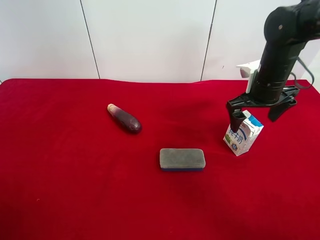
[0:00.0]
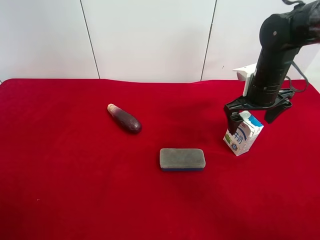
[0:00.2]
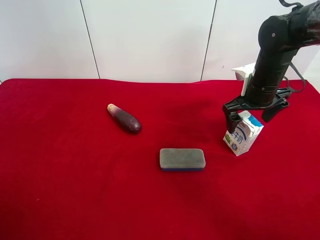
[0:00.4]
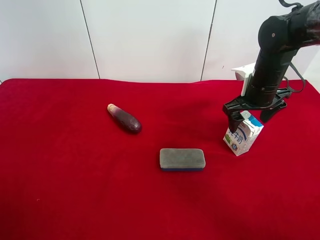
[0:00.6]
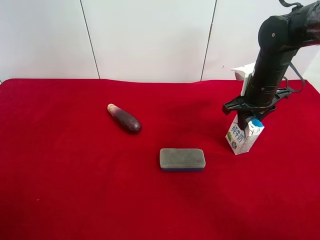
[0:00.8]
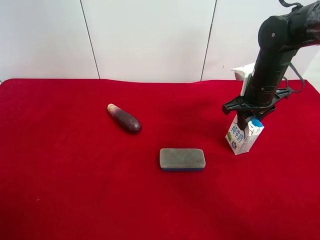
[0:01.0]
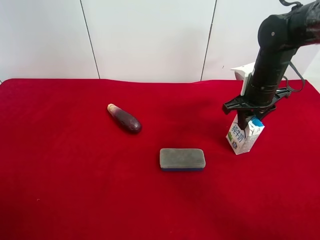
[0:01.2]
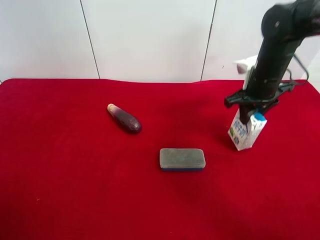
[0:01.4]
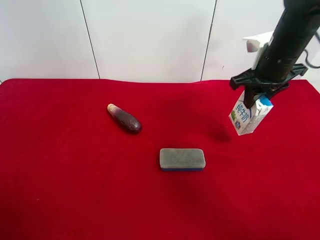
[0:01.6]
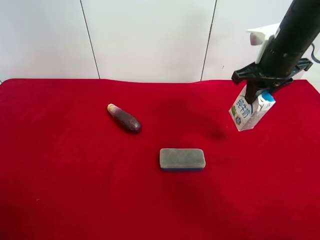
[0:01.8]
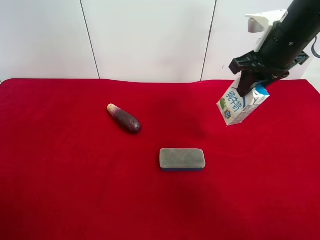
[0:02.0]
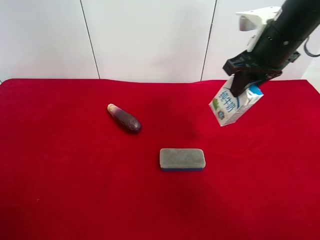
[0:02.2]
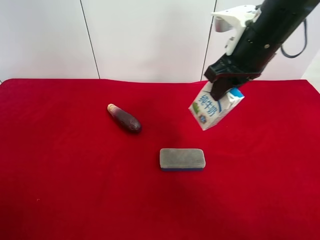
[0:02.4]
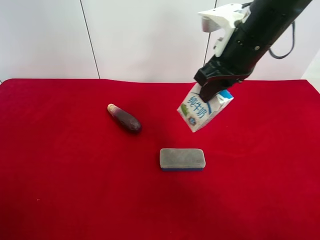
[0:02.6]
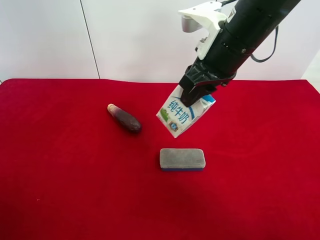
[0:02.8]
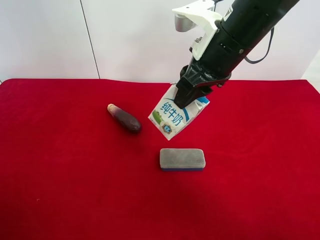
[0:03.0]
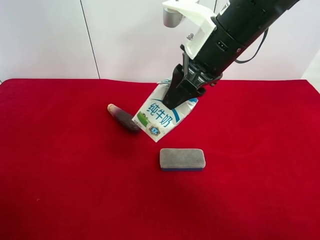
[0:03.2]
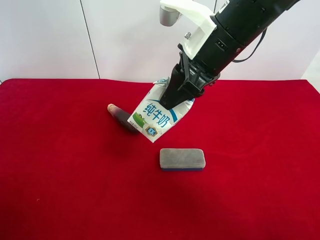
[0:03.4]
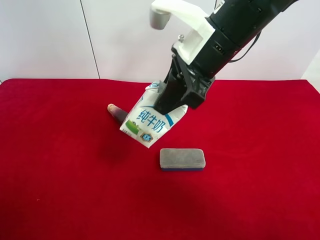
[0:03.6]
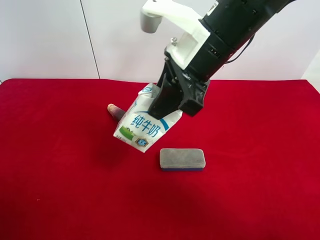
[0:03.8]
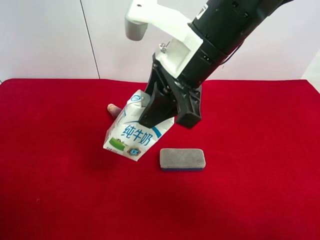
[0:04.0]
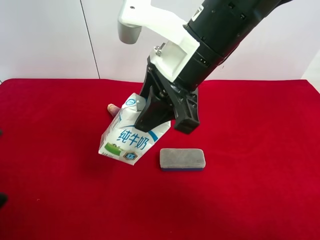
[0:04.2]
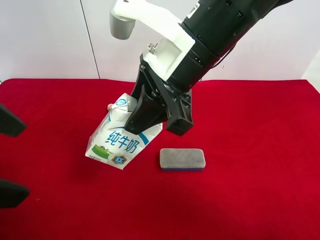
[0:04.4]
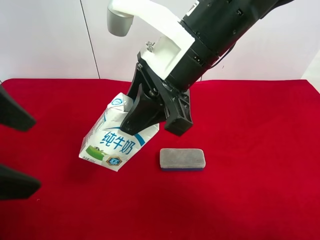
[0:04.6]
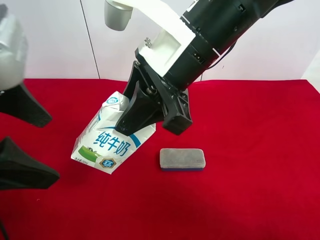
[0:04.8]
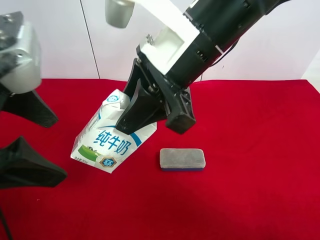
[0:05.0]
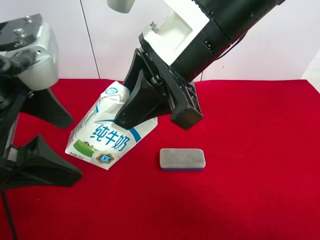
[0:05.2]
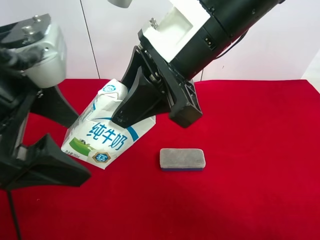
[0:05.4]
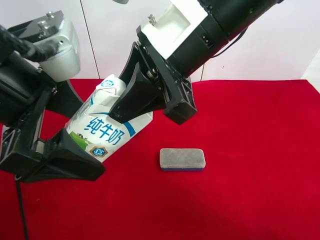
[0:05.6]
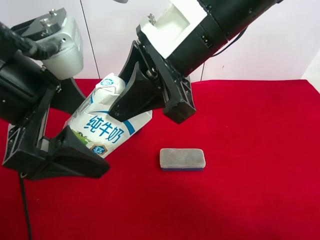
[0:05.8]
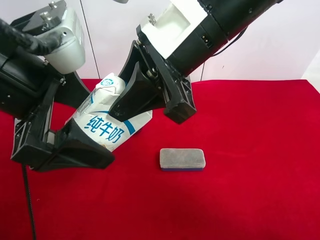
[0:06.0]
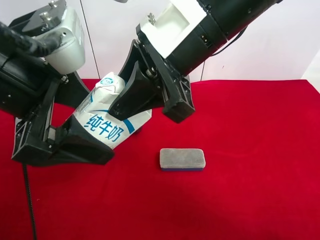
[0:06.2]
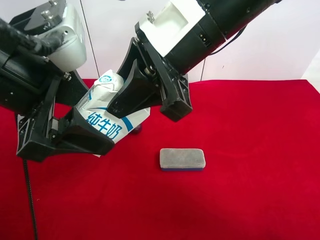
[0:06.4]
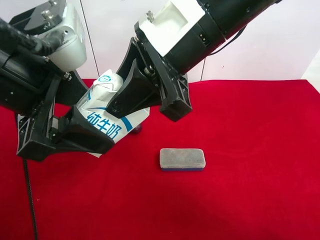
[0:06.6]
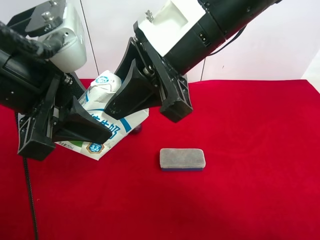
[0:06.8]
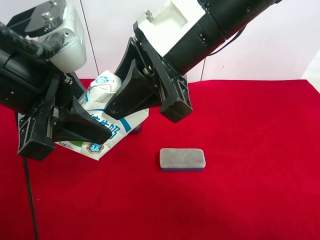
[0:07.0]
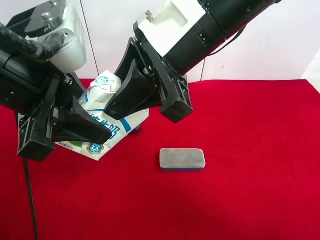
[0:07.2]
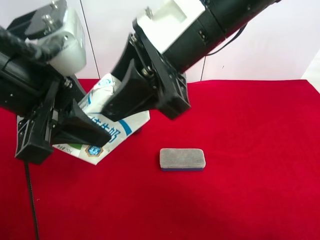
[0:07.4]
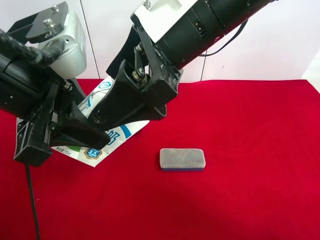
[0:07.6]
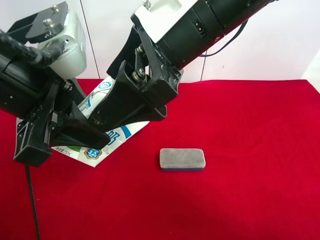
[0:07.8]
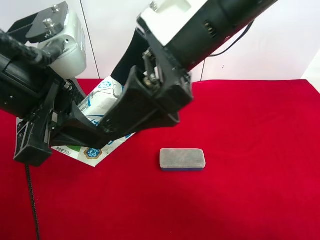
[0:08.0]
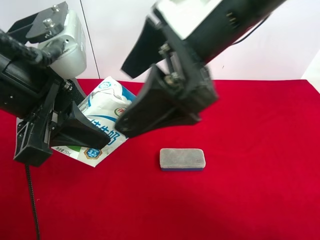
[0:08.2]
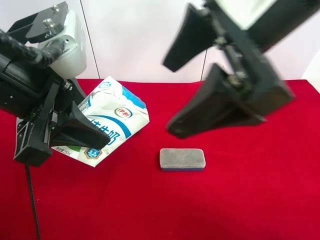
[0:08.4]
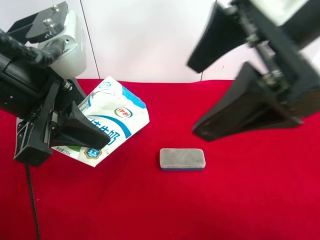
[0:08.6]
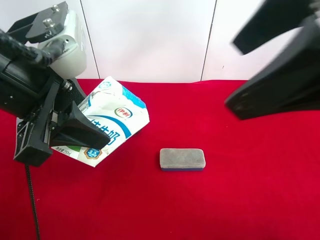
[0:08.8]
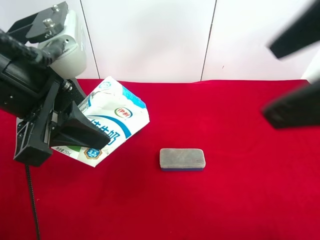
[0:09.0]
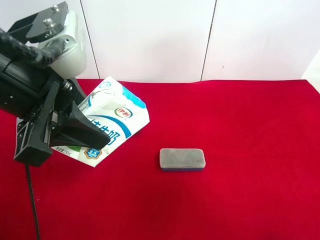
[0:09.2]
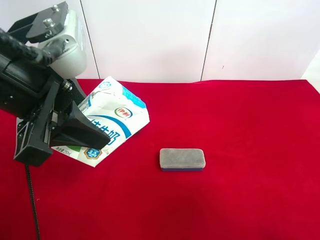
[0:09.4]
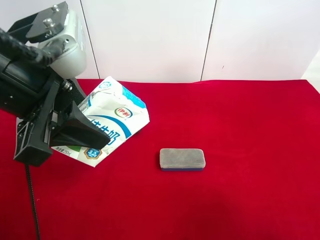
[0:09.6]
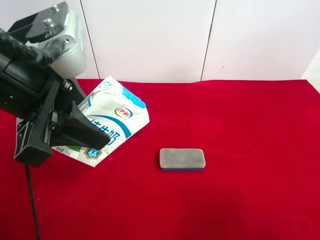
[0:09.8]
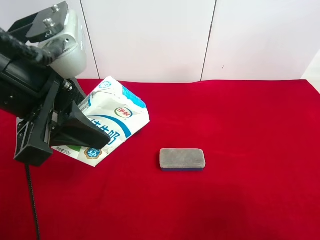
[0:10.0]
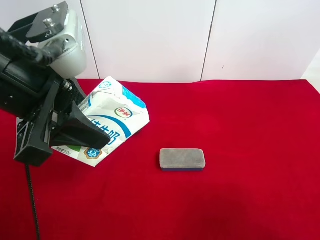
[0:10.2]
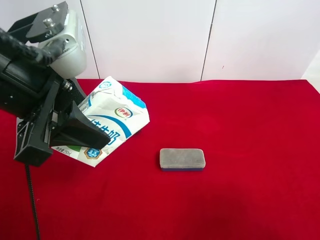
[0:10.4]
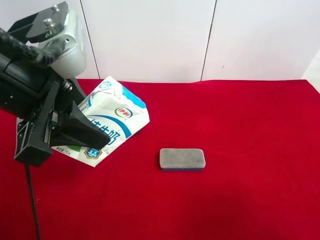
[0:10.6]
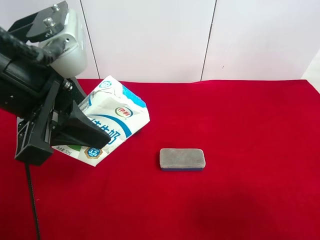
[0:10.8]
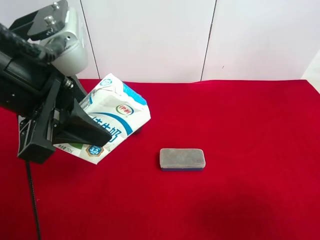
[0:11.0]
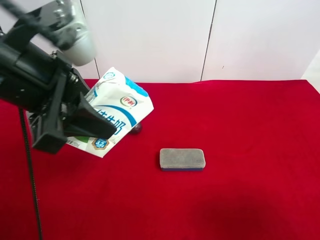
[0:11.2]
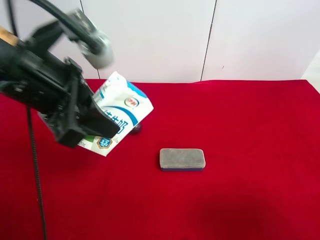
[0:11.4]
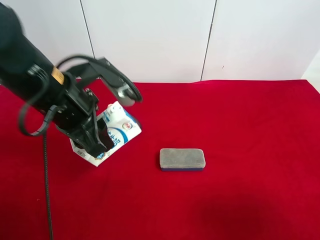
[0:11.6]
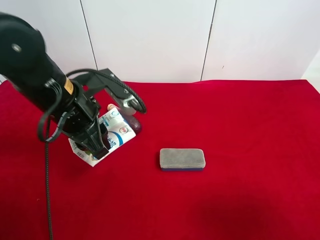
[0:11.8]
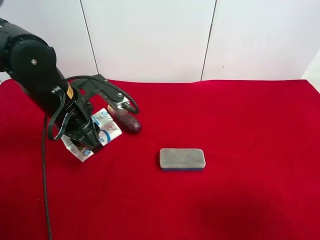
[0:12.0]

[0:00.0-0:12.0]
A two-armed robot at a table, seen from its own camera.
Task of the whole recording: use the right gripper to pick up the item and transfer it from the right gripper to the left gripper.
Step, 0:01.0 to 0:07.4: Pass the milk to the left gripper.
0:00.0 to 0:01.6: The right gripper shifts roughly 5 cm upward, and closes its fingers.
0:01.6 to 0:03.0: The right gripper goes some 15 cm to the left and backward.
0:03.0 to 0:04.4: The left gripper shifts roughly 15 cm forward, to the right and upward, while the right gripper heads to the left, covering roughly 5 cm.
0:04.4 to 0:06.0: The left gripper travels to the right and forward by about 10 cm.
0:06.0 to 0:07.6: The left gripper closes up. The right gripper opens up.
0:07.6 to 0:09.0: The right gripper travels to the right, backward and upward by approximately 20 cm.
0:09.0 to 0:10.4: The right gripper moves downward, to the right and backward, roughly 20 cm.
0:10.4 to 0:12.0: The left gripper travels downward and forward by roughly 15 cm.

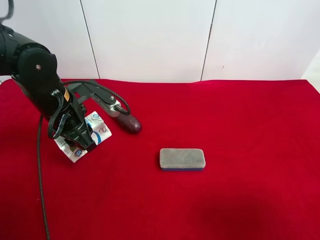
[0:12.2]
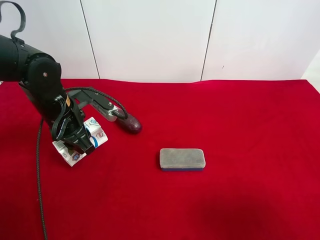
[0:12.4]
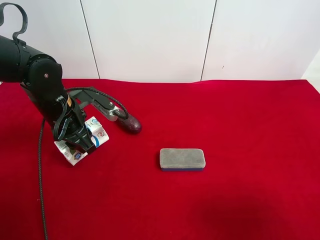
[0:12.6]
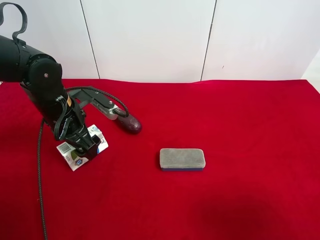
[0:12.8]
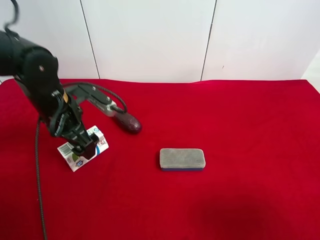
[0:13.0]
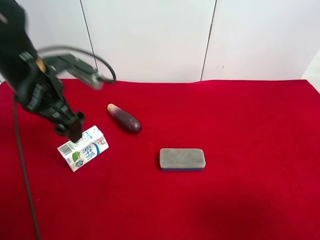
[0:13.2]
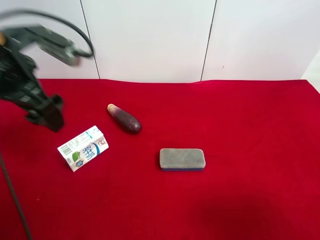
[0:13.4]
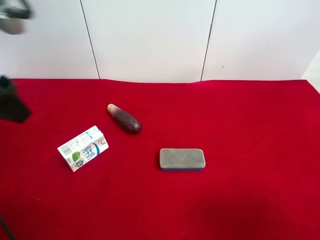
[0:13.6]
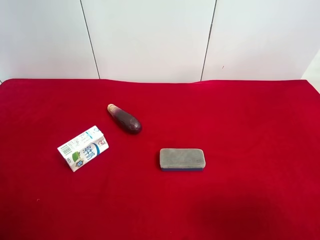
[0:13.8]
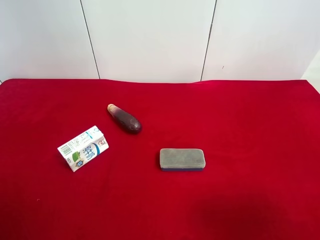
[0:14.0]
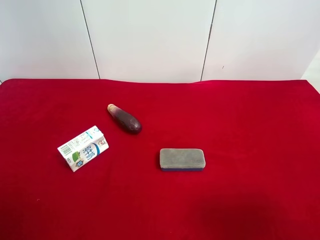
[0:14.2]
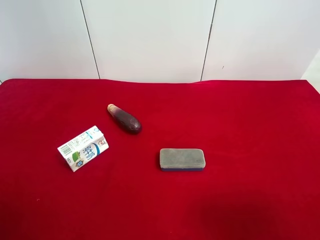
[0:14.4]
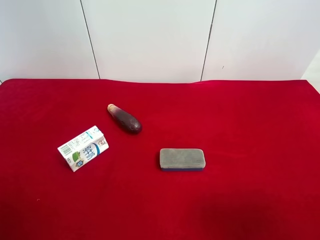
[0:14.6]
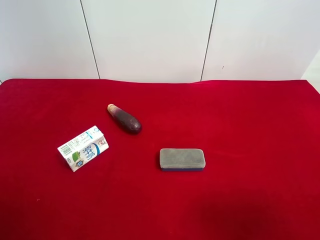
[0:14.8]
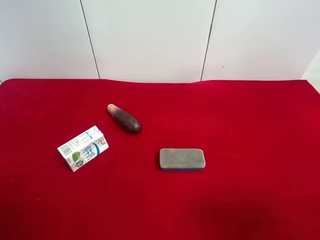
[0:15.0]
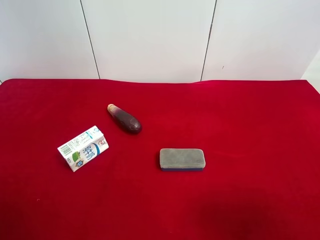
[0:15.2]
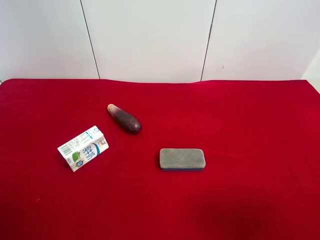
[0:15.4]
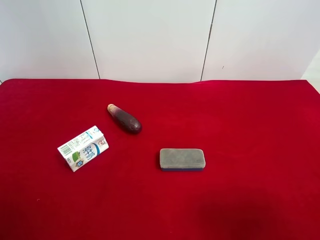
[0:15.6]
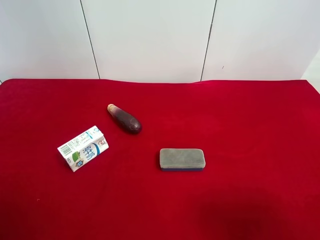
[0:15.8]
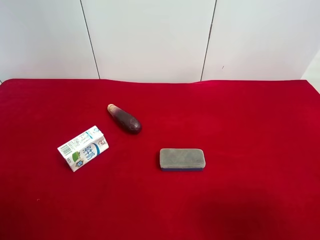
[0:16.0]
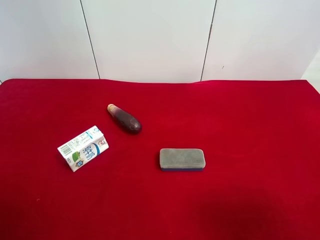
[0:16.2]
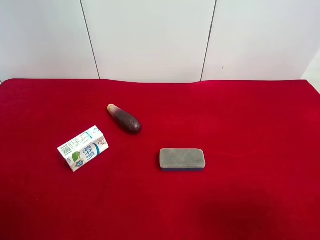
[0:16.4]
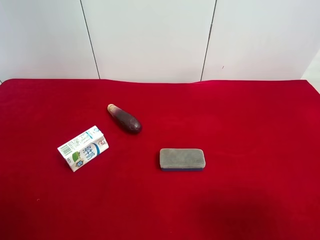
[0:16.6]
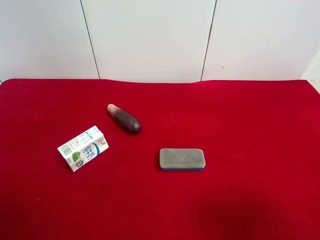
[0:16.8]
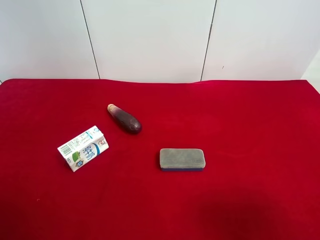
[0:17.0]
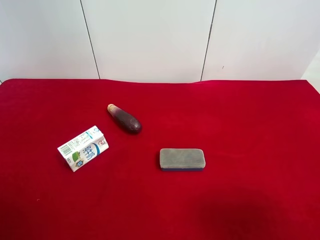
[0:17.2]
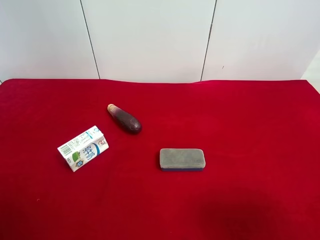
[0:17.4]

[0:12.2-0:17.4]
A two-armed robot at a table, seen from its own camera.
Task of the whole recording: use the right gripper to pick up the item and transfer it from the right gripper to the left gripper.
0:12.2 to 0:14.0: The left gripper is displaced backward, upward and to the left by roughly 30 cm, and opens up.
